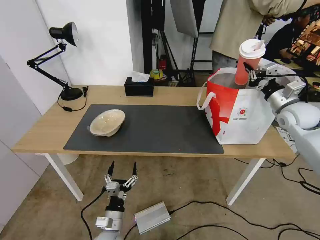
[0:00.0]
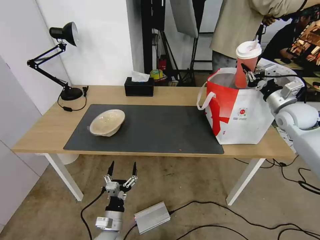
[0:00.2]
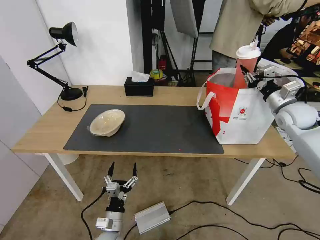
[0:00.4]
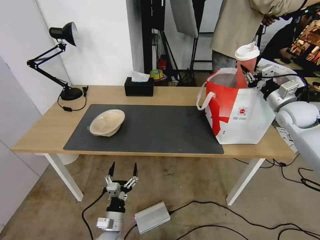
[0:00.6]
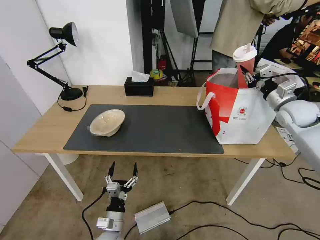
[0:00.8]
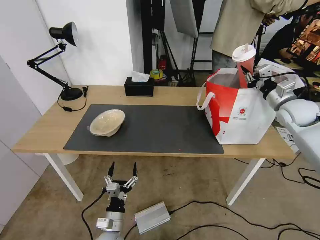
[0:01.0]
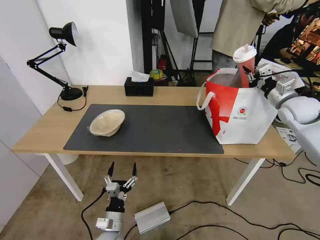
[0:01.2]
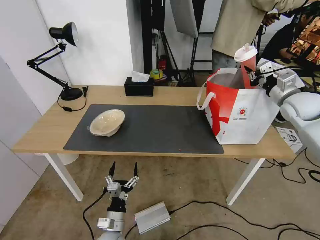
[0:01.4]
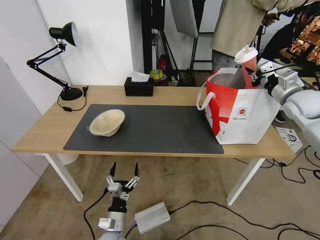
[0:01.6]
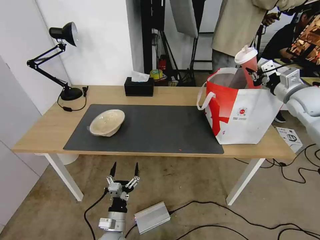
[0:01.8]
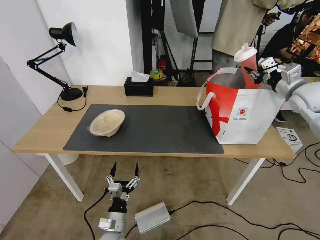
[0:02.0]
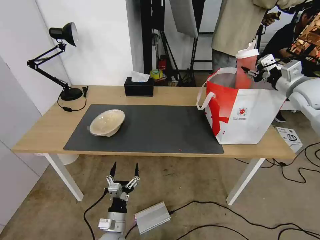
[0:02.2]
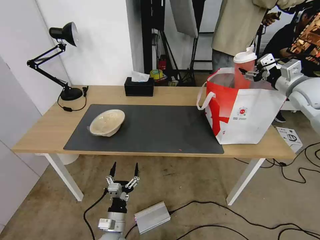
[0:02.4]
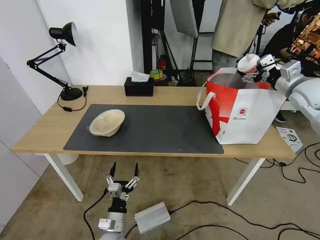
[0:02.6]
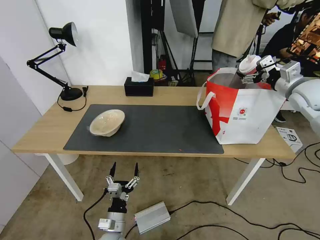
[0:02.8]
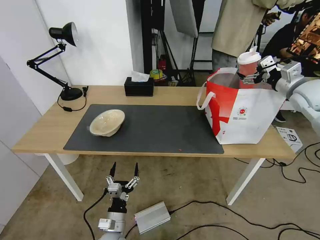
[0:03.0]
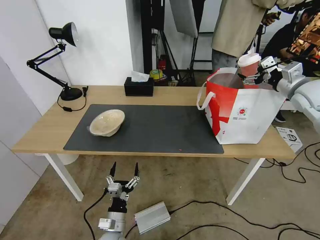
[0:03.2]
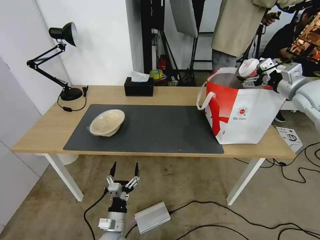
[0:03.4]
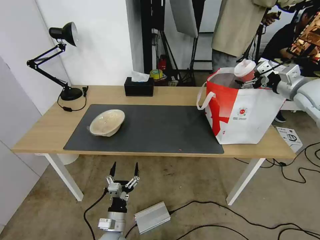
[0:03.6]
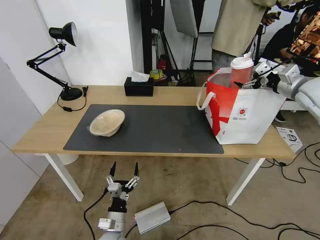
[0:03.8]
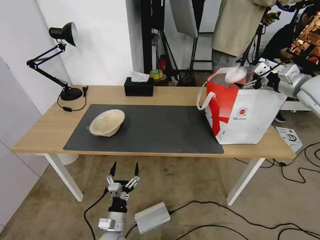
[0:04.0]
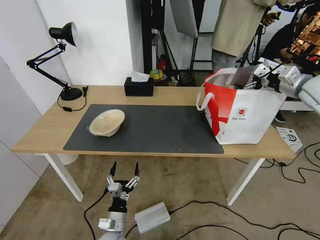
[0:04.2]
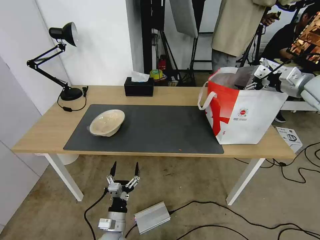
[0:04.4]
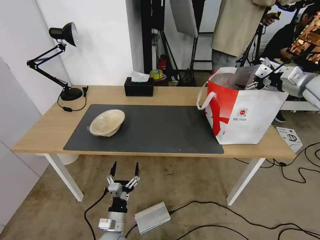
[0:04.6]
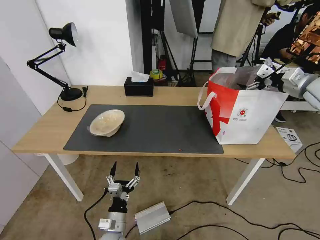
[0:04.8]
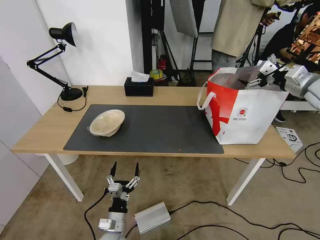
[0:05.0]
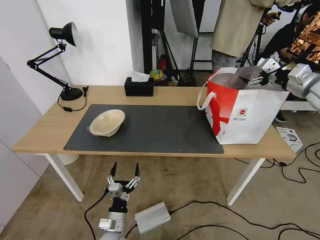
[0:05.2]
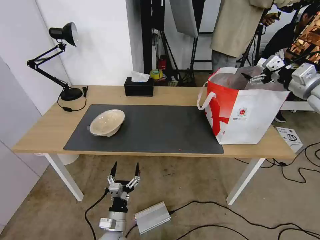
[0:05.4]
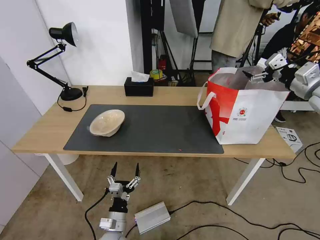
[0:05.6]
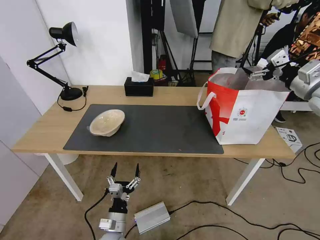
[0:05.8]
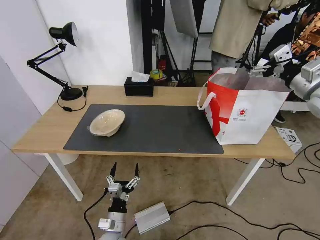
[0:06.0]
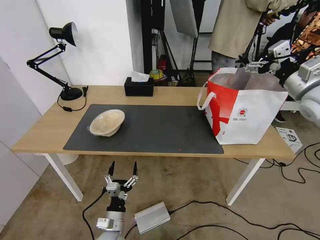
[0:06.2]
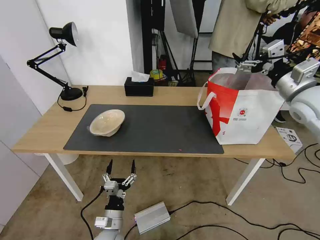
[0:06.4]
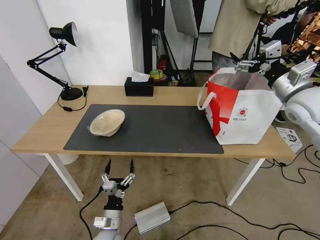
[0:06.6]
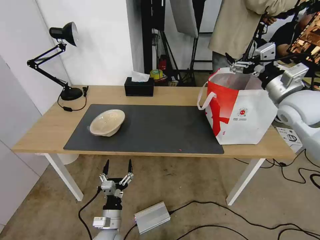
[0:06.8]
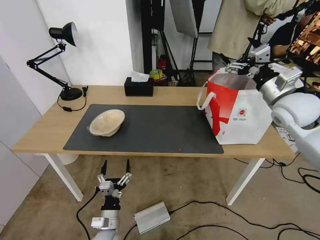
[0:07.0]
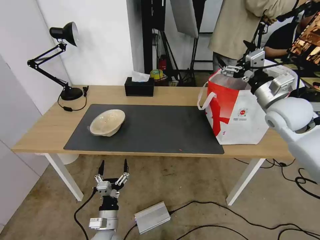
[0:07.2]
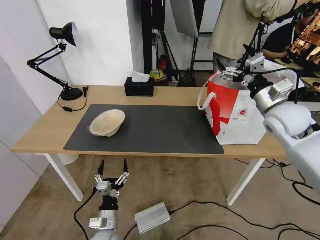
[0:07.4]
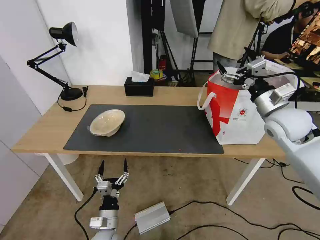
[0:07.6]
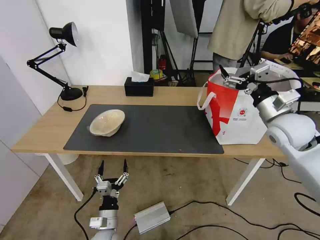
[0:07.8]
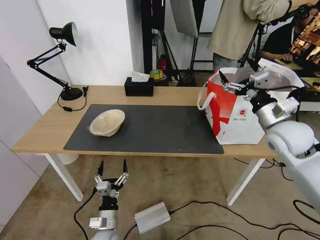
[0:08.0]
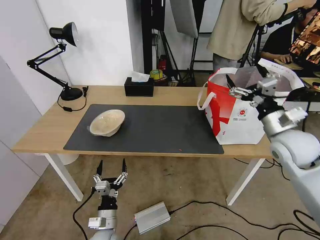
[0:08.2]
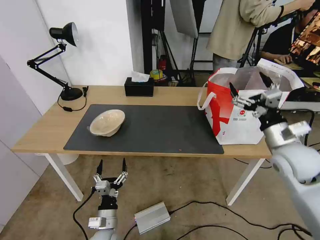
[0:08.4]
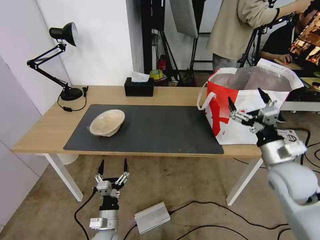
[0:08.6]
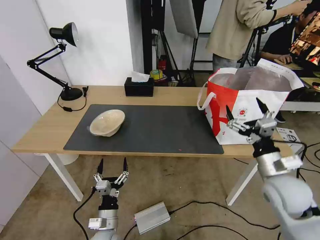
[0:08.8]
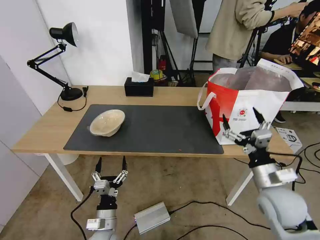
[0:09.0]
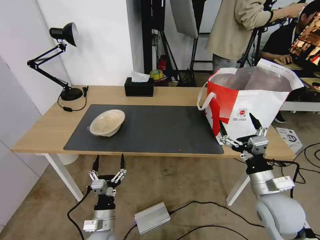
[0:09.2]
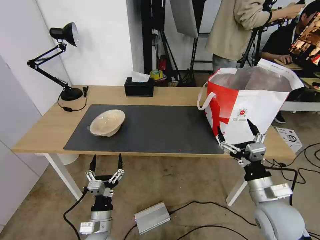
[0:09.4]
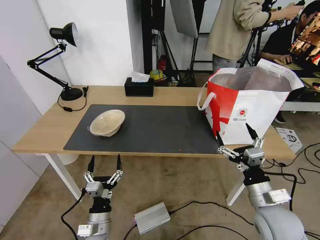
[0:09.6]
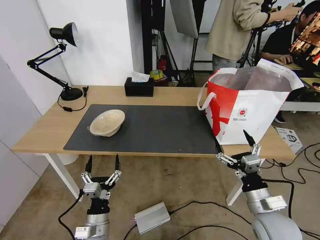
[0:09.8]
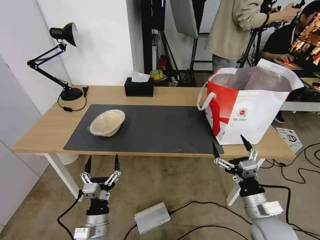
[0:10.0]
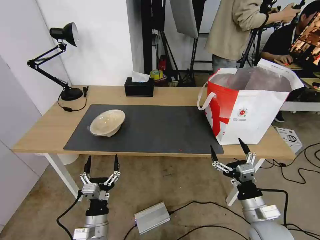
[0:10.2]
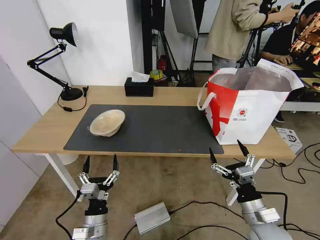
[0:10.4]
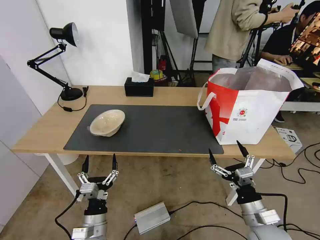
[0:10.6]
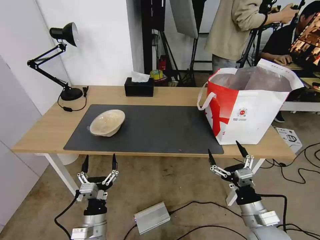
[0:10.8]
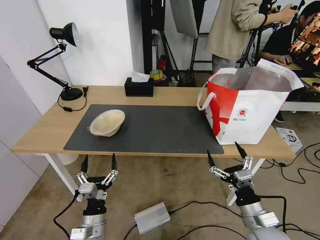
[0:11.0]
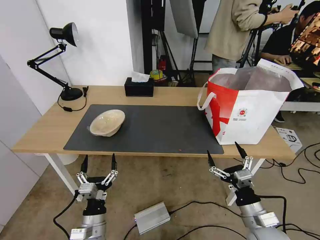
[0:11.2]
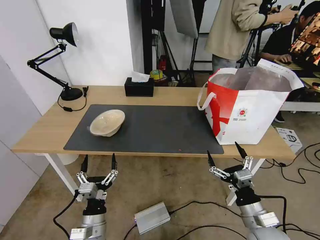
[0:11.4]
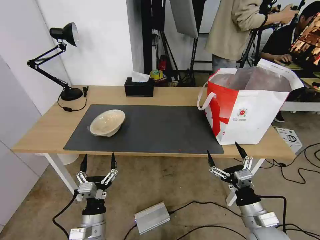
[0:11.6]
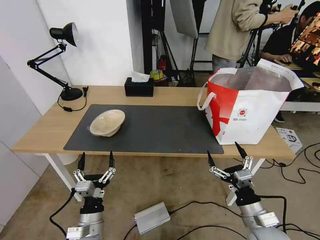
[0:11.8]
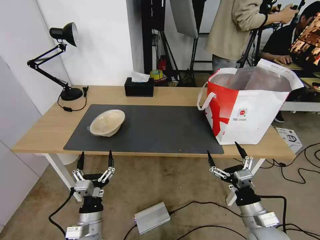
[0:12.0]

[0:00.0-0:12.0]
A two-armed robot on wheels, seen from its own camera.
Task of the whole recording: Pick up the trash from the table and place it into the takeout bag.
0:01.6 to 0:03.0: The right gripper opens.
0:04.4 to 0:06.0: The right gripper shifts some 5 cm backward.
0:06.0 to 0:07.6: The right gripper moves to the left and downward, approximately 10 cm.
0:07.6 to 0:09.0: The right gripper moves backward and downward, roughly 20 cm.
0:09.0 to 0:10.4: The right gripper shifts about 10 cm downward and backward.
0:10.4 to 0:12.0: There are only small adjustments of the grippers.

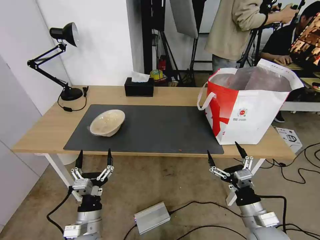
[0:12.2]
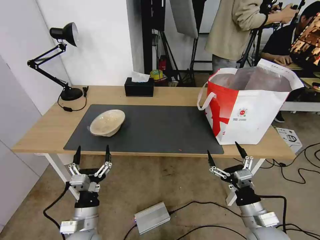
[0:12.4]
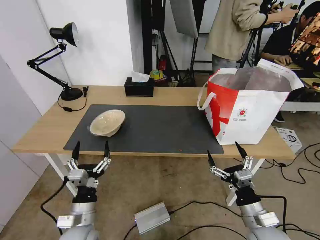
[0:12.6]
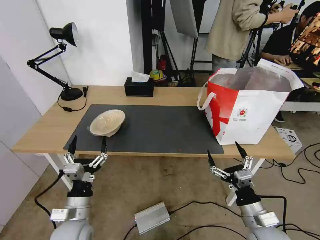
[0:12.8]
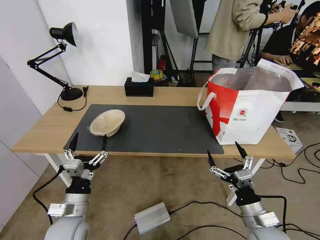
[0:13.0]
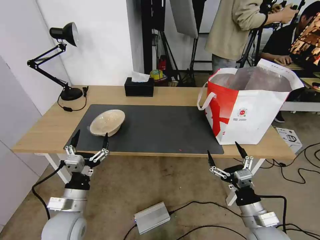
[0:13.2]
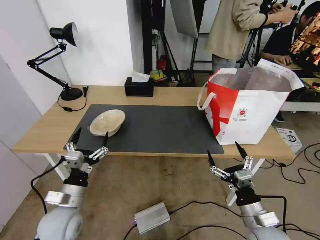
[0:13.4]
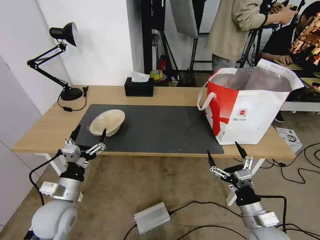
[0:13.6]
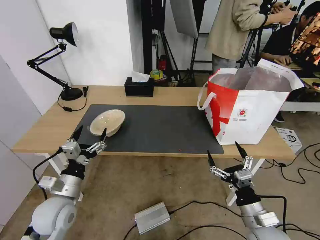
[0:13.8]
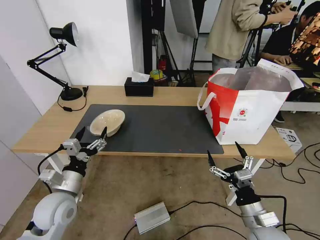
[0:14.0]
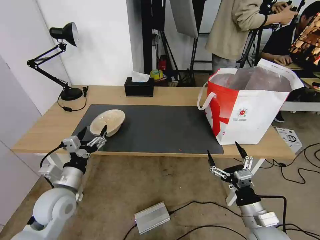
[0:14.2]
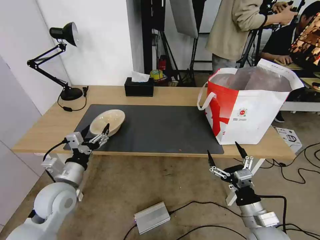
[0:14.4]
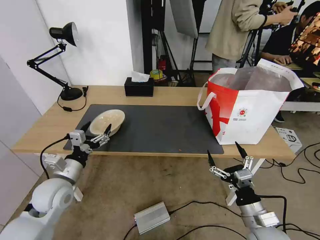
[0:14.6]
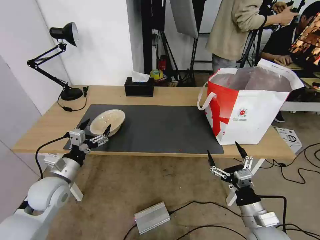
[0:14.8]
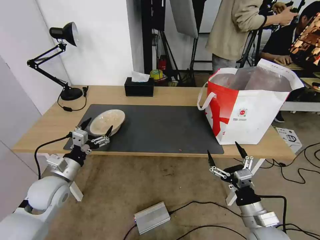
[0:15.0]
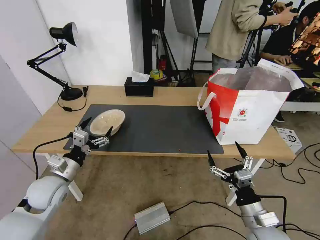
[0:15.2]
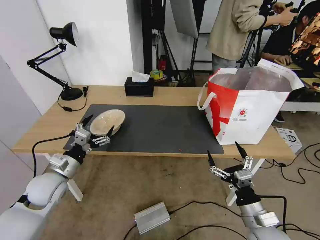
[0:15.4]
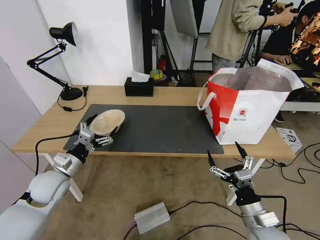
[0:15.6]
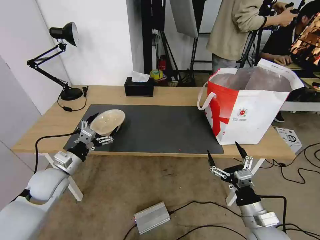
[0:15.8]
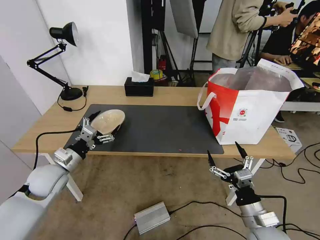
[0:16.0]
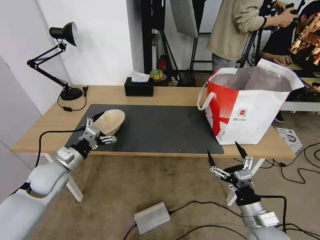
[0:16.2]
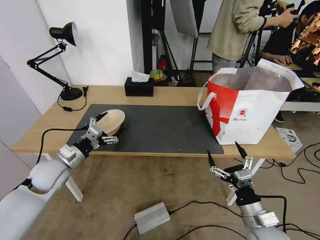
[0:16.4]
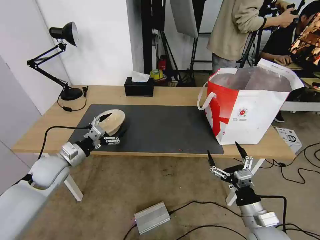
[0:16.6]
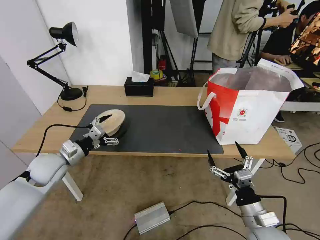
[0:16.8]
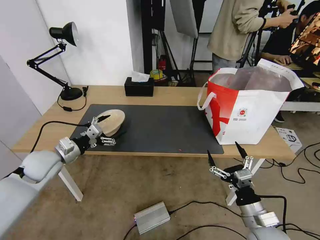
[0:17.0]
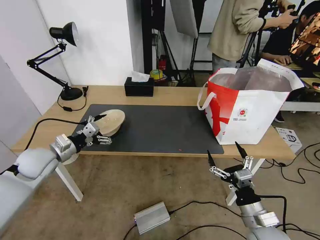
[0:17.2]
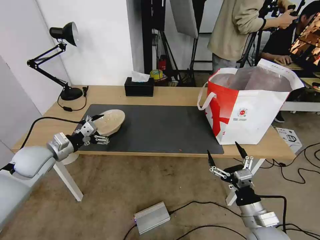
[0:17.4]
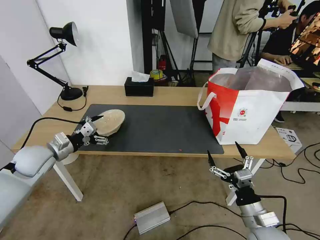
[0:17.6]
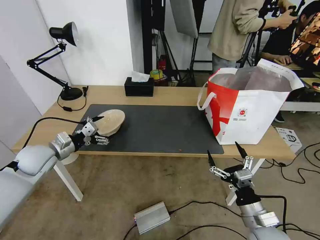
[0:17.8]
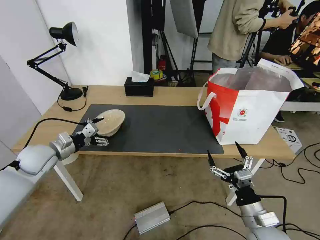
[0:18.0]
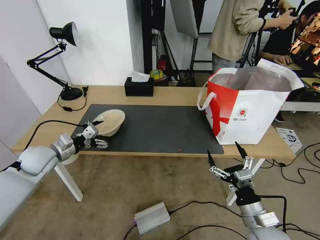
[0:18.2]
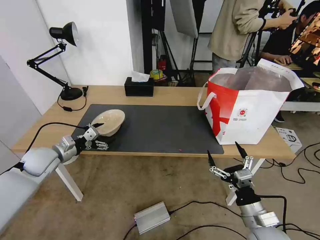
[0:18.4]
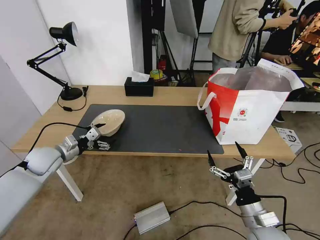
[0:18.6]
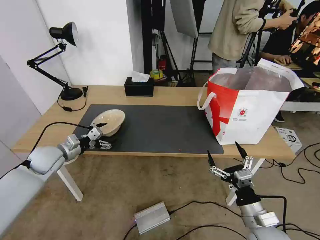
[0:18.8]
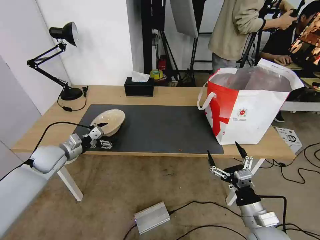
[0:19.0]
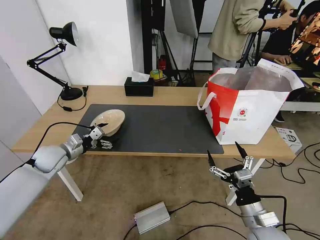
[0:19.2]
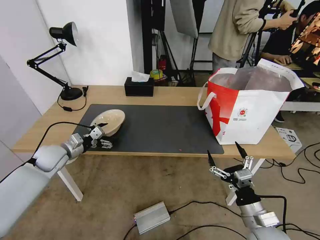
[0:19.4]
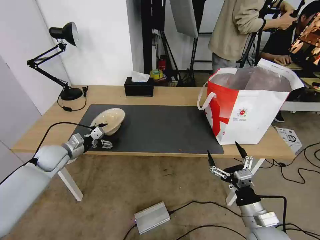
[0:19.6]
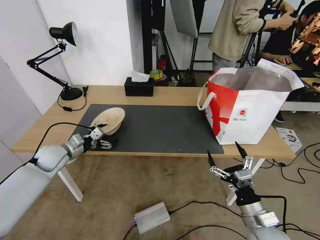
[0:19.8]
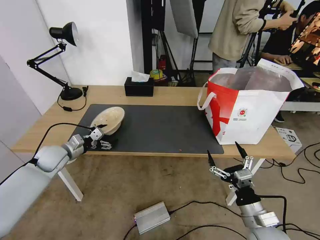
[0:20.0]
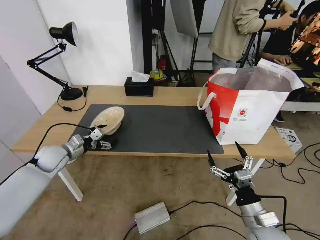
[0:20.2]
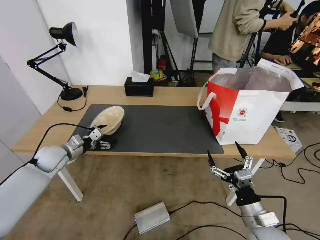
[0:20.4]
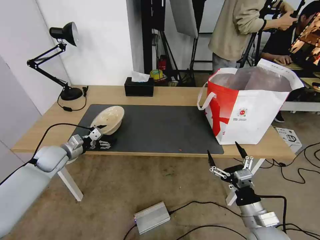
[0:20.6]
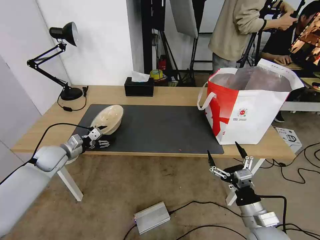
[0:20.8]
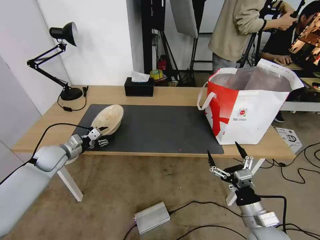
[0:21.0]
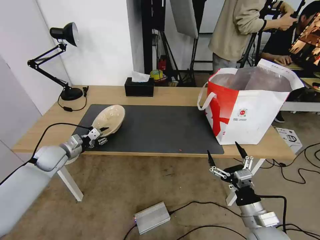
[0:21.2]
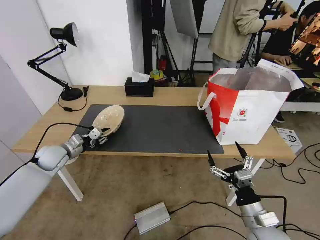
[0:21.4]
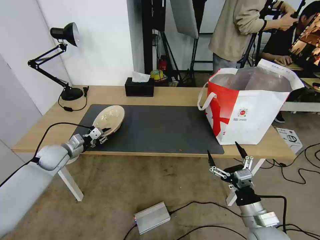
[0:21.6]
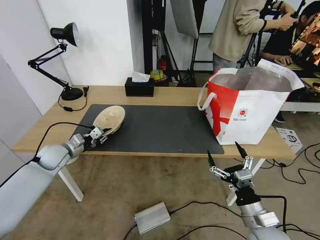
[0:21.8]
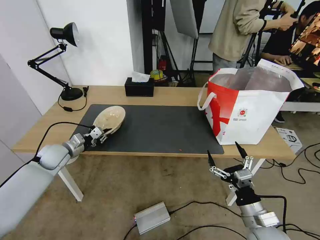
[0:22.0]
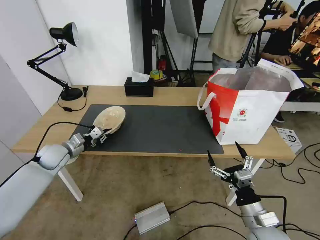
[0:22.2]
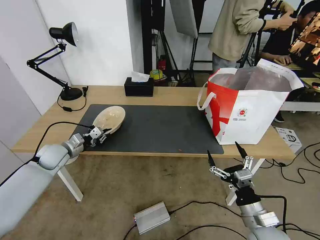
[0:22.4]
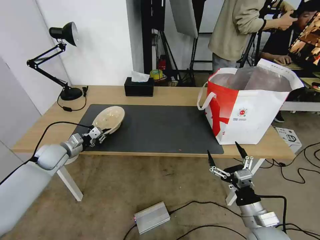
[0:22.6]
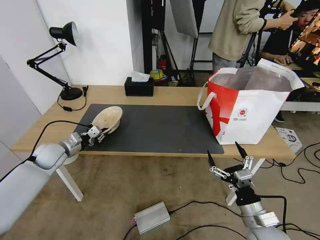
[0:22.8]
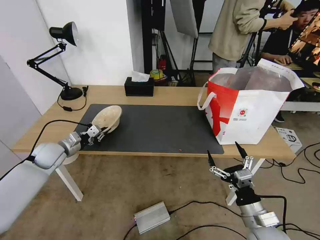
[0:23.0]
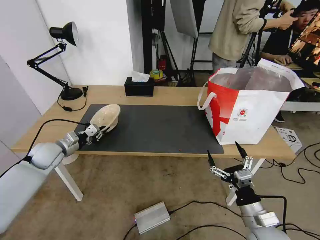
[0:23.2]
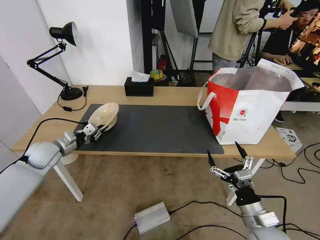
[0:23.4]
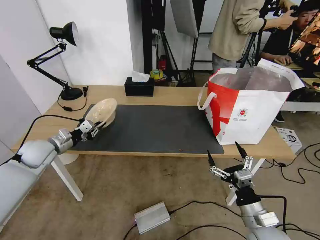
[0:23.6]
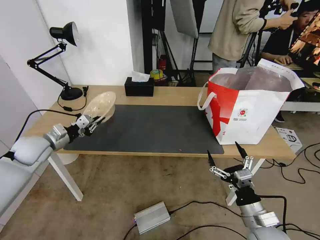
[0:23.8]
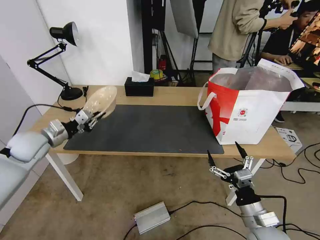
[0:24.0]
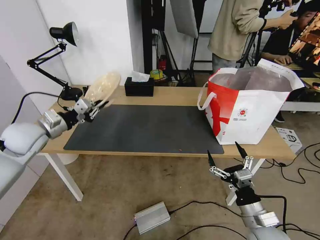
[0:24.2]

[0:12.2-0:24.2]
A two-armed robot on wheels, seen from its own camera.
Task of the whole recording: Pick up the trash from the table and place it into the takeout bag.
0:12.2 to 0:13.8: The left gripper goes some 15 cm to the left, upward and forward.
0:13.8 to 0:15.2: The left gripper shifts approximately 5 cm forward.
0:15.2 to 0:16.6: The left gripper heads forward, covering some 5 cm.
0:16.6 to 0:18.2: The left gripper shifts by approximately 5 cm.
0:18.2 to 0:19.8: The left gripper changes place by some 5 cm.
0:19.8 to 0:21.2: The left gripper closes its fingers.
0:21.2 to 0:22.6: Both grippers stay about where they are.
0:22.6 to 0:24.2: The left gripper travels upward by roughly 15 cm.
